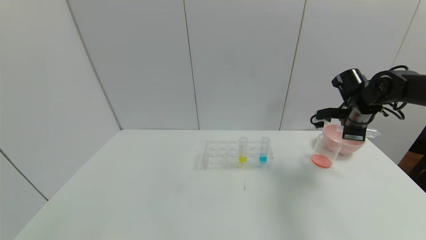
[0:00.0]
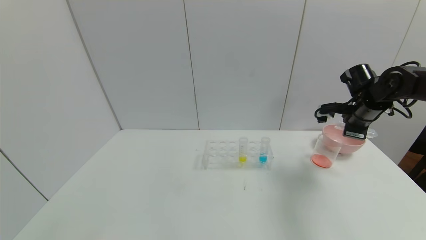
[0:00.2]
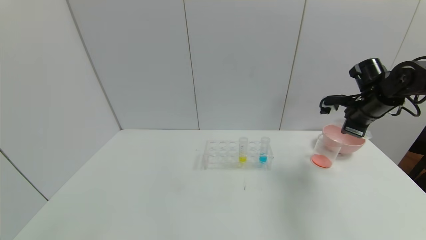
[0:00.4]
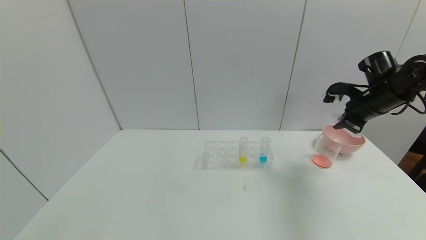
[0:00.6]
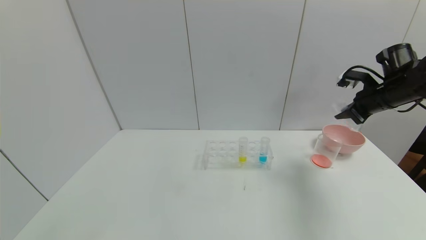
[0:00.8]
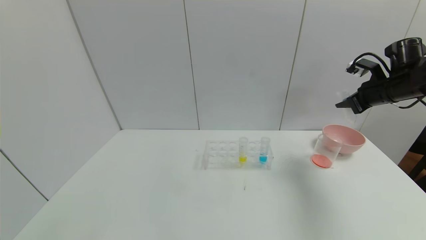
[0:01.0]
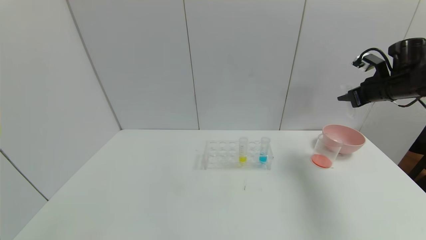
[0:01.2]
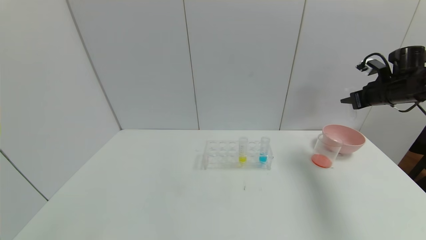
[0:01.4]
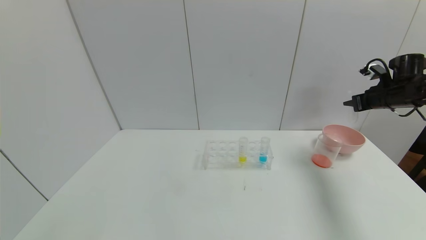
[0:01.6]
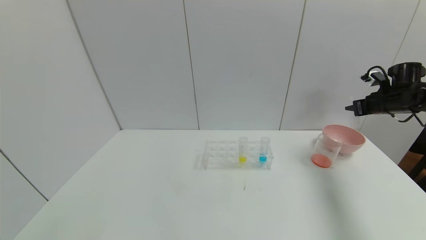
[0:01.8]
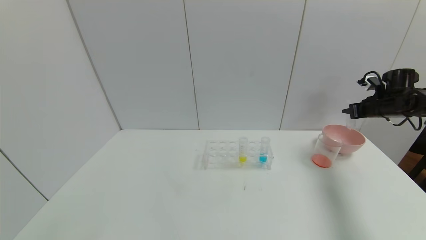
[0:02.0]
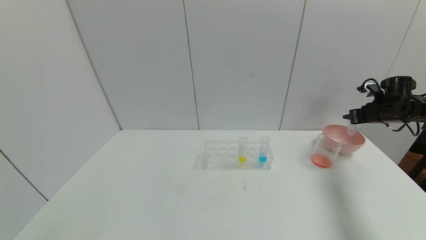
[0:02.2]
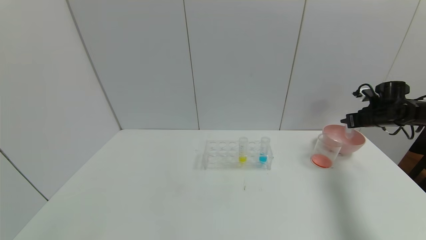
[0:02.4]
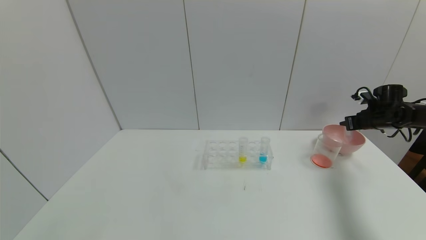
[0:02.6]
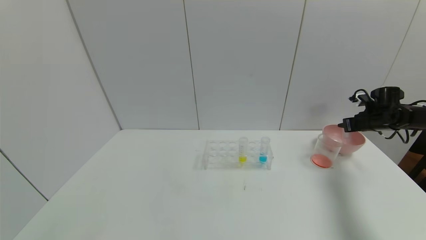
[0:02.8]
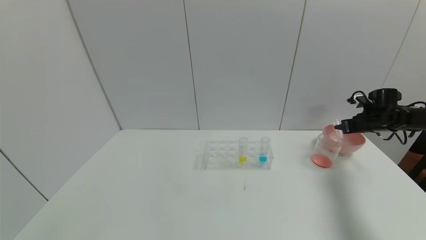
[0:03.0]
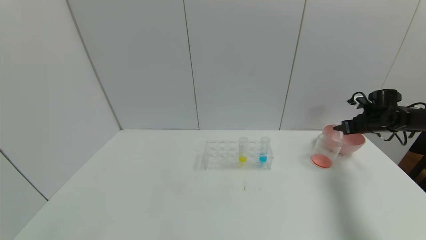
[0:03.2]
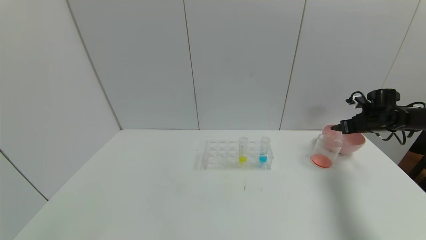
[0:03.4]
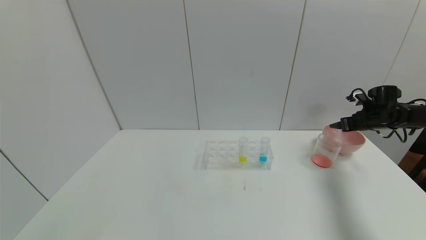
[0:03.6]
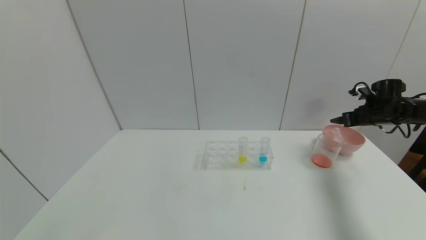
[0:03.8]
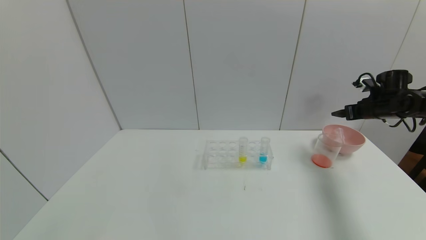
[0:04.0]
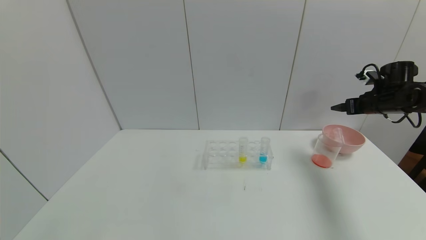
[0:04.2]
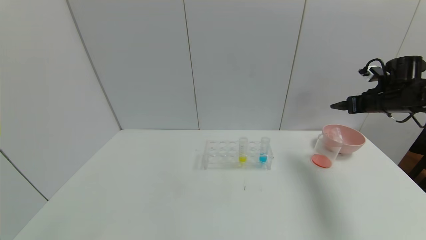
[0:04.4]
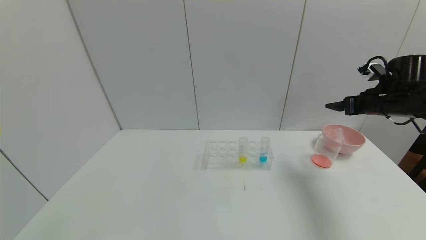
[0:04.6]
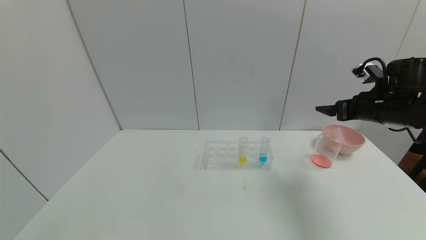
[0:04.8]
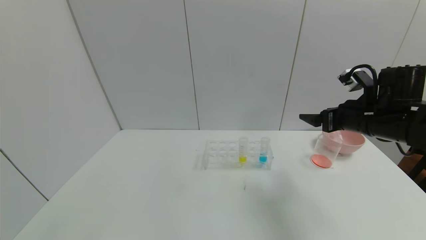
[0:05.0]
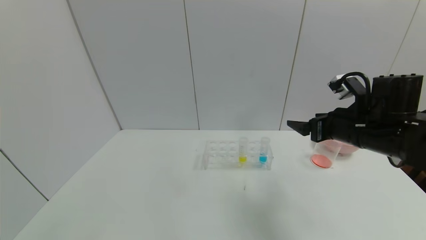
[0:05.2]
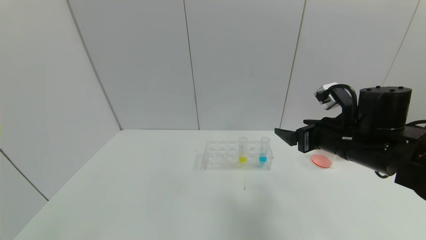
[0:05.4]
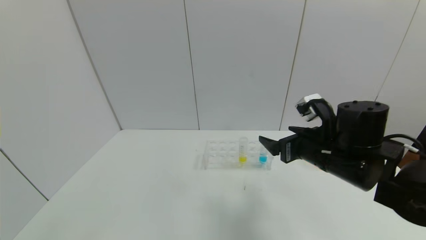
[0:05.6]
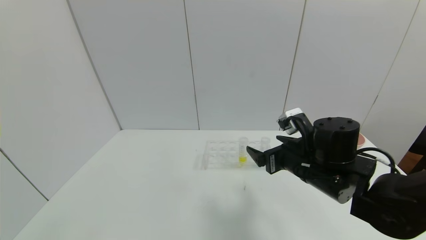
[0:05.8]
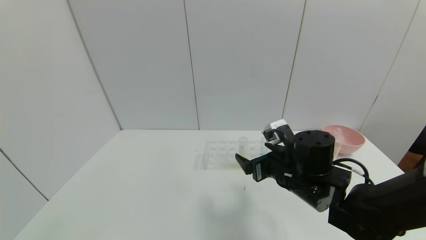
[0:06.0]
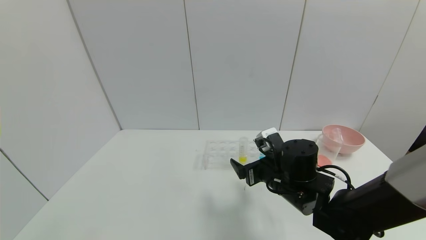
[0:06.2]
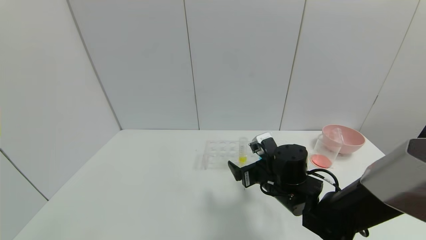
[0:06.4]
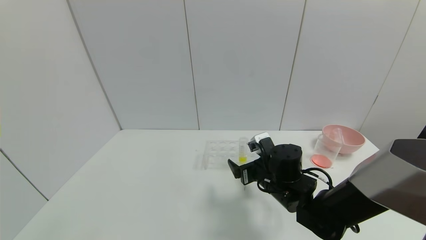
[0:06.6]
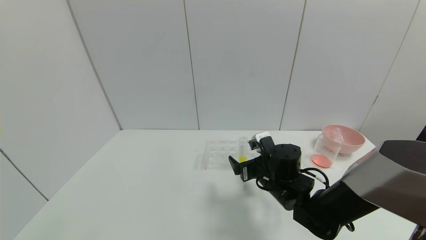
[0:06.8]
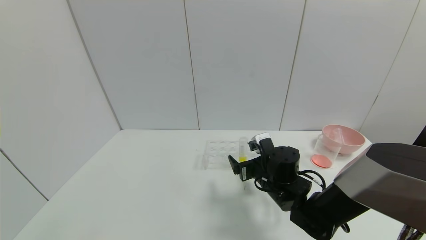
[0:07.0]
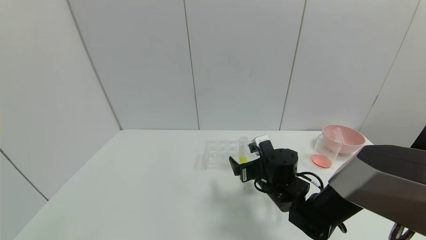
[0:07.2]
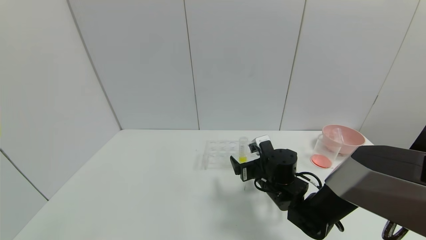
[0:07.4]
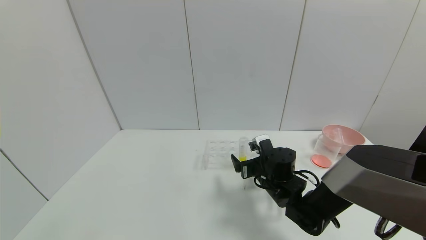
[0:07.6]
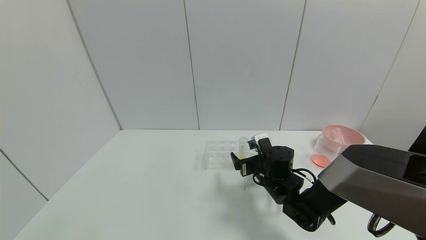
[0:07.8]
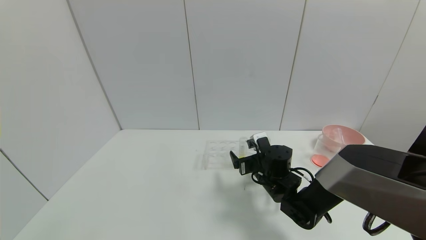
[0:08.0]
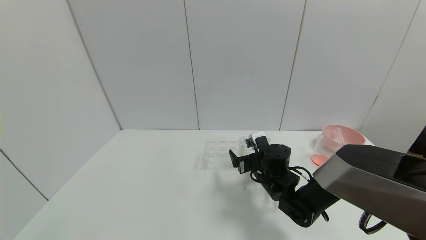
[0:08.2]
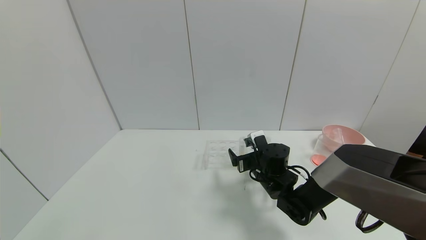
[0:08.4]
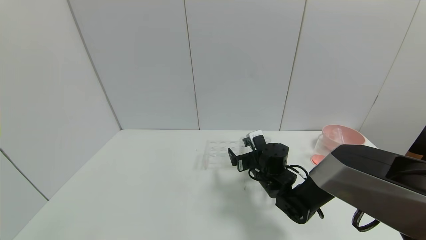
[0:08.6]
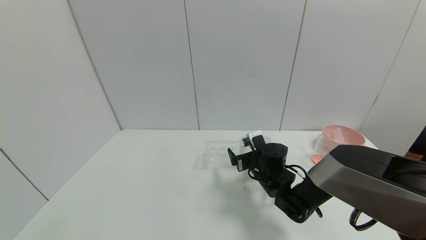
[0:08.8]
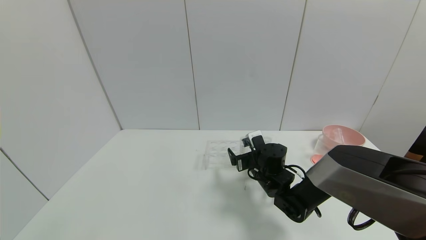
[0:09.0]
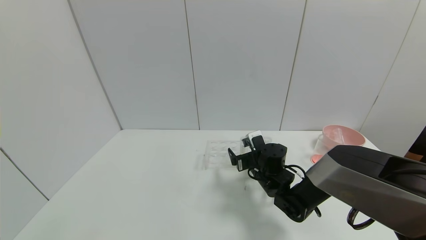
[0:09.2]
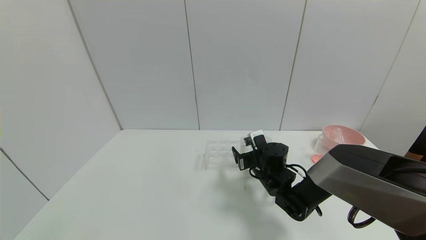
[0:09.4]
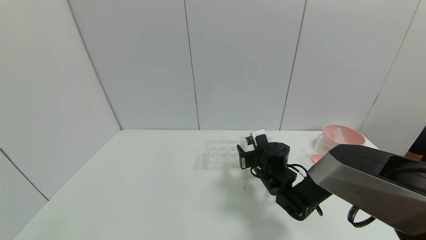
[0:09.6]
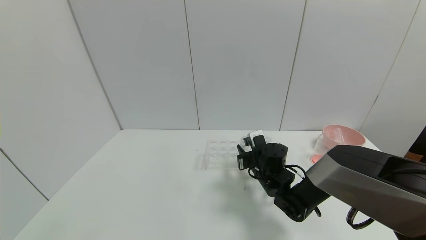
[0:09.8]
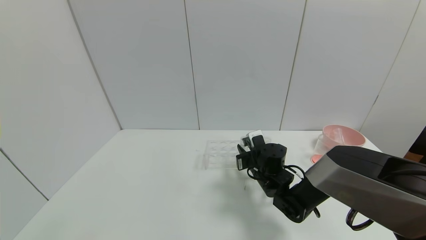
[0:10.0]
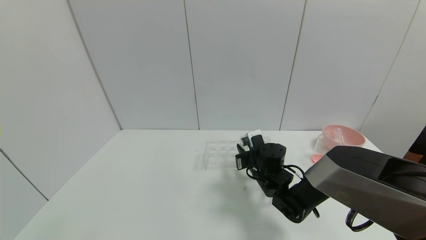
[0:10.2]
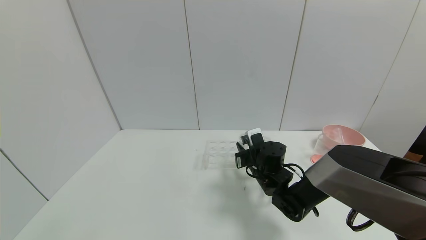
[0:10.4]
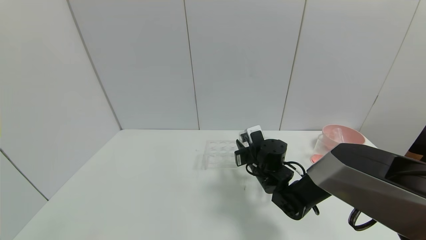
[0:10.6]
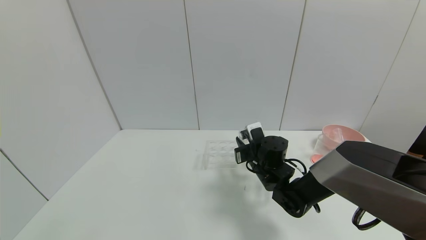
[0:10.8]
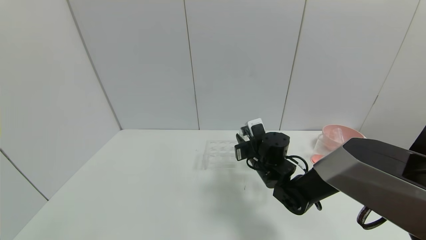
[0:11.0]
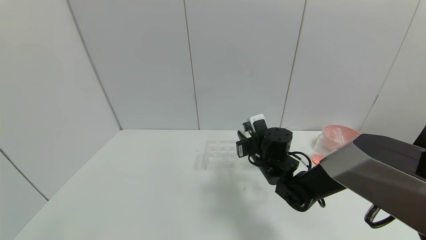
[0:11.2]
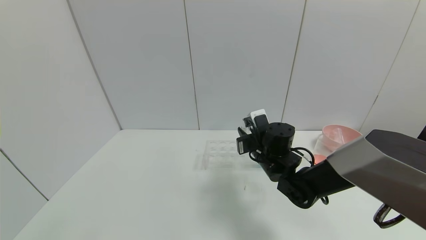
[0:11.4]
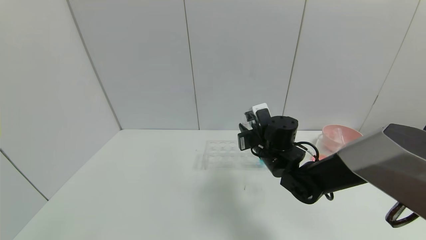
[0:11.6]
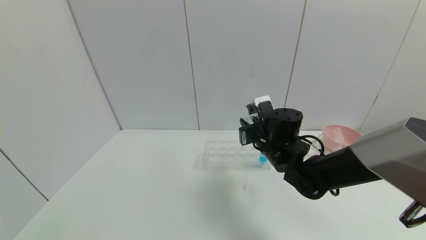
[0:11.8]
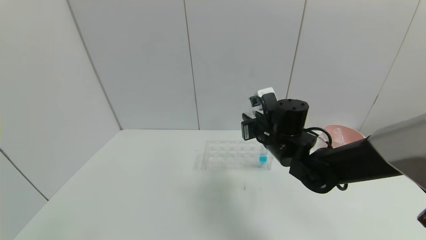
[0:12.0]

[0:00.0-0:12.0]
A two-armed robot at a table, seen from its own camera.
Task of the whole recording: pick up the test tube with yellow pigment and the test tube with red pigment by grippers and pour them into the beaker.
Step, 0:00.0 to 0:03.6: Place the test tube into the bowl with the right gripper.
Step, 0:03.8 to 0:09.8: Grasp the yellow reagent with the right gripper.
0:00.0 to 0:01.6: The right gripper shifts roughly 10 cm to the right.
0:01.6 to 0:03.0: The right gripper travels downward by some 10 cm.
0:03.0 to 0:04.4: The right gripper heads upward, backward and to the left, covering approximately 15 cm, and opens.
0:04.4 to 0:06.0: The right gripper heads to the left and backward, covering approximately 30 cm.
0:06.0 to 0:07.6: The right gripper moves downward and forward, roughly 10 cm.
0:07.6 to 0:09.0: There are only small adjustments of the grippers.
0:09.0 to 0:10.4: The right gripper closes.
0:10.4 to 0:12.0: The right gripper shifts roughly 10 cm upward.

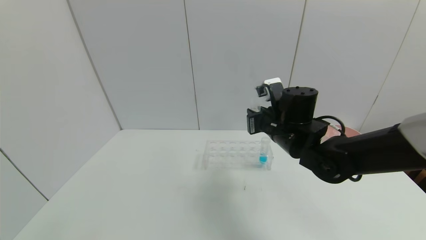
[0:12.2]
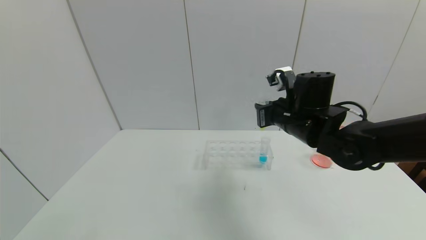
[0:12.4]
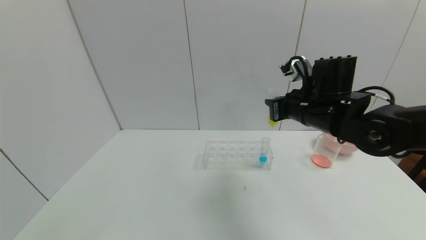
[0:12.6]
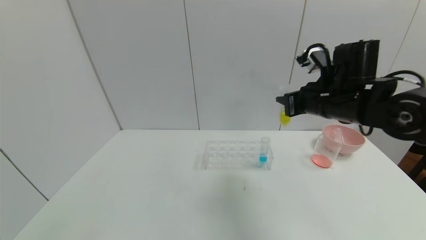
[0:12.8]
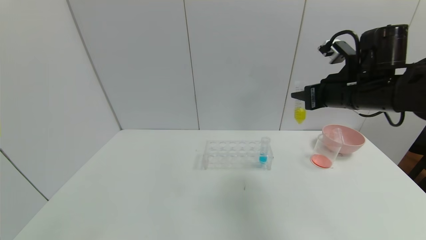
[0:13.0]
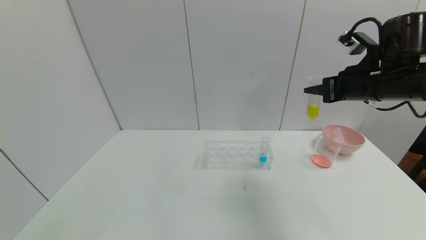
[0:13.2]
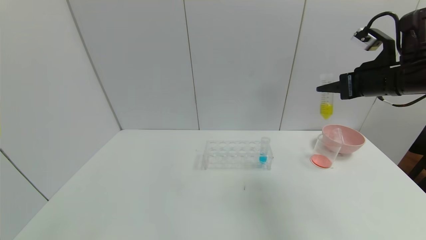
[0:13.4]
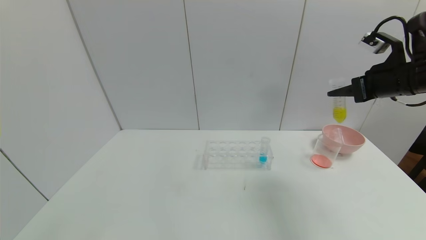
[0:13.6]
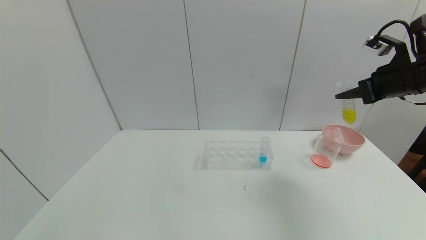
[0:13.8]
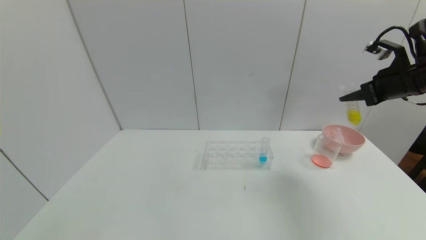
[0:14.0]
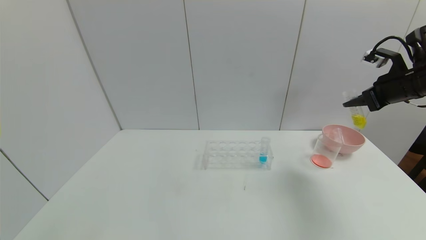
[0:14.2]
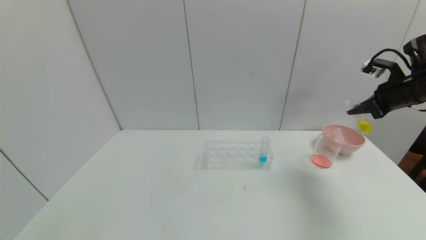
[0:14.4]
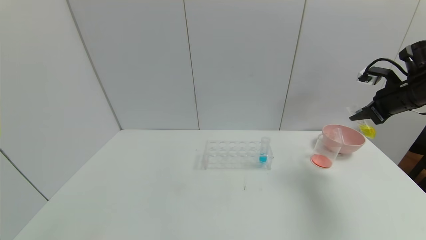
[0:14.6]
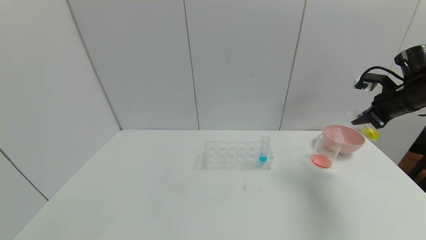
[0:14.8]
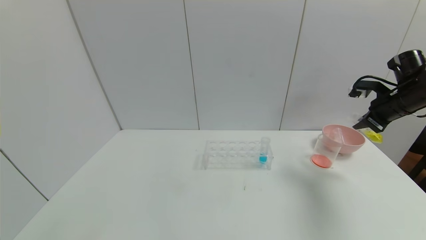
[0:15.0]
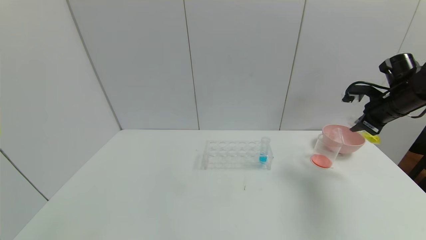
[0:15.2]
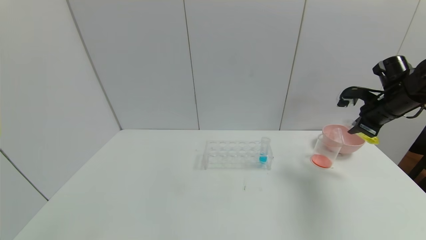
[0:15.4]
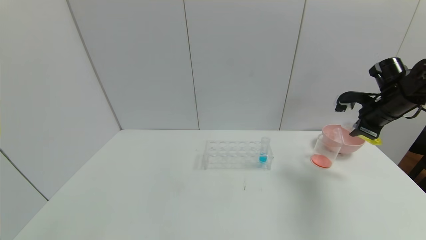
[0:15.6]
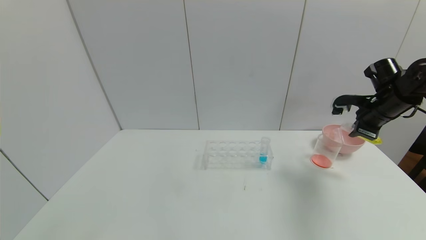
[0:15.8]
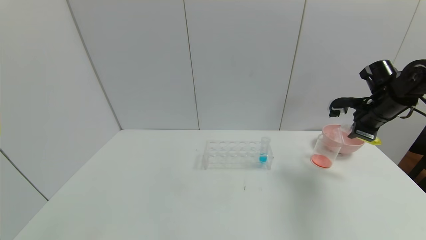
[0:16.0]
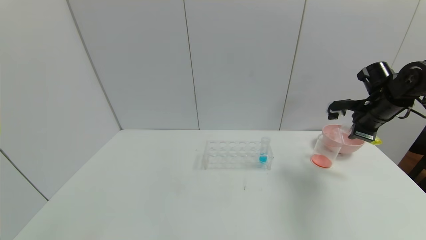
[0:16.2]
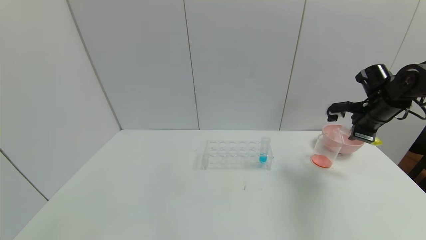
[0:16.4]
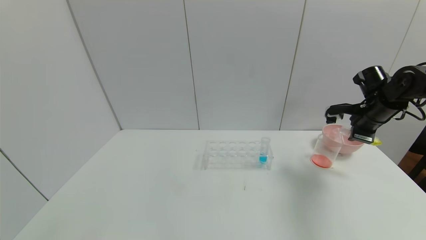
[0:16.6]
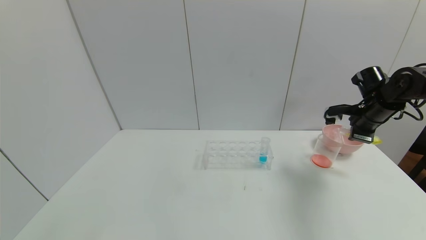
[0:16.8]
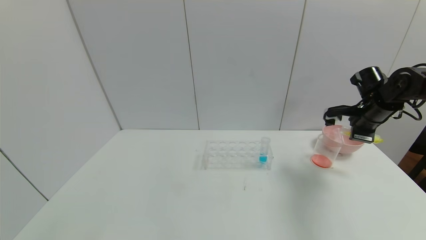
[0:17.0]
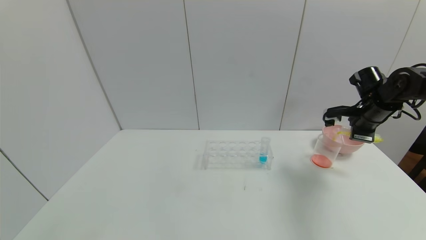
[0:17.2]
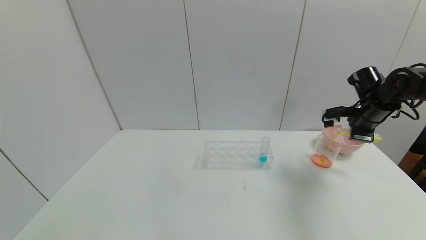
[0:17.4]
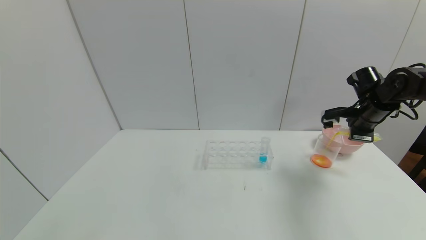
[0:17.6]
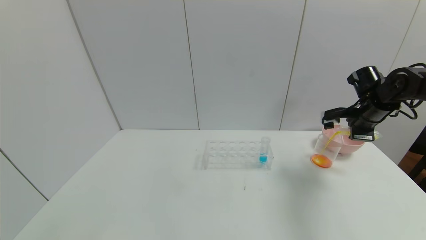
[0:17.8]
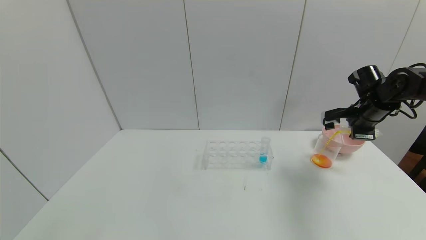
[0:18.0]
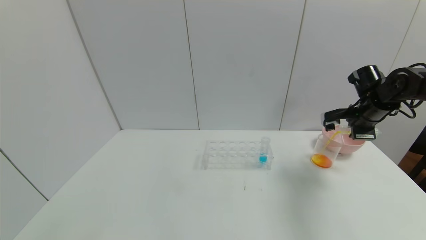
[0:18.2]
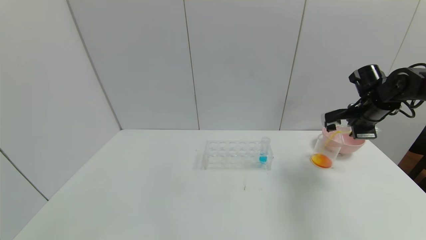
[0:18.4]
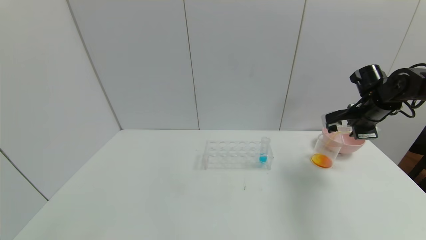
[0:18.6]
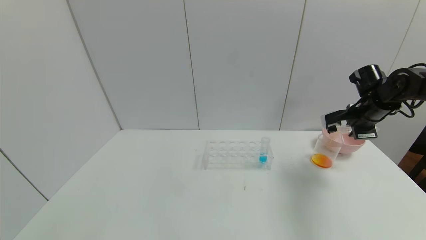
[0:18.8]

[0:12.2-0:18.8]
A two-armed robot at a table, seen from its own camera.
Task of the whole recording: pick up the test tube with yellow pigment and the test tube with red pigment by grippers and pour them into the beaker.
0:12.2 to 0:13.8: The right gripper moves to the right and upward, approximately 25 cm.
0:13.8 to 0:15.4: The right gripper travels downward and forward by about 10 cm.
0:17.2 to 0:18.8: There are only small adjustments of the grippers.
